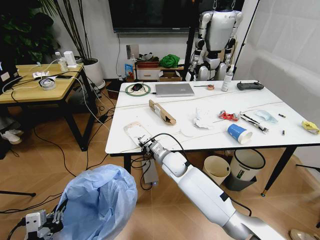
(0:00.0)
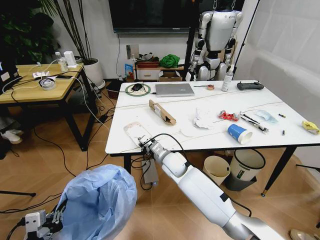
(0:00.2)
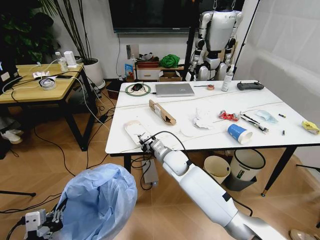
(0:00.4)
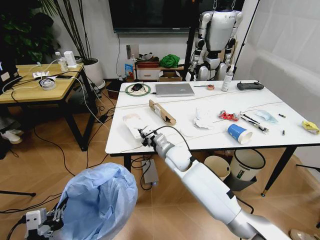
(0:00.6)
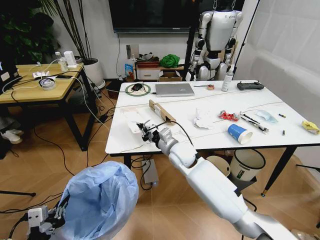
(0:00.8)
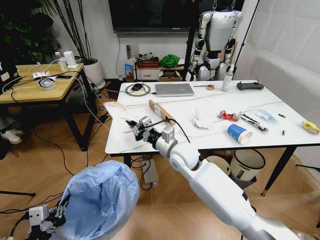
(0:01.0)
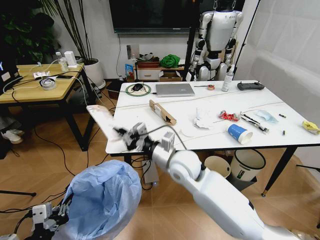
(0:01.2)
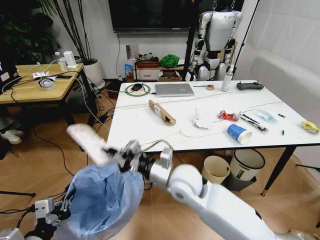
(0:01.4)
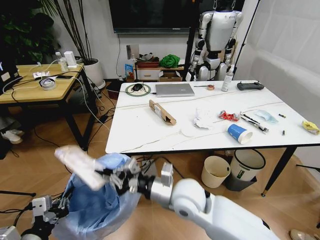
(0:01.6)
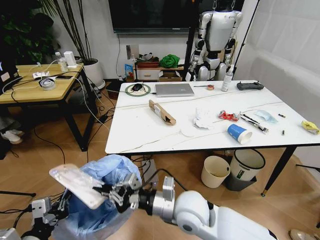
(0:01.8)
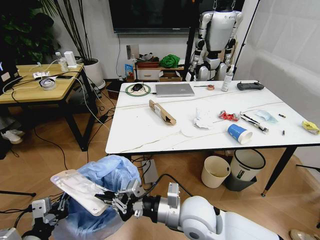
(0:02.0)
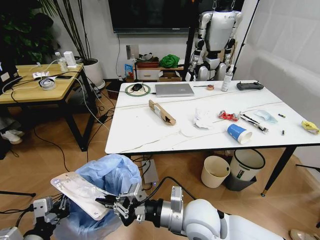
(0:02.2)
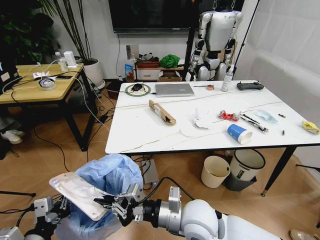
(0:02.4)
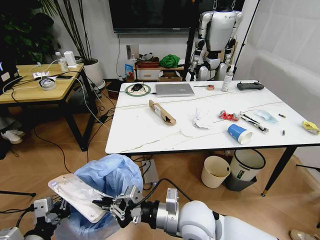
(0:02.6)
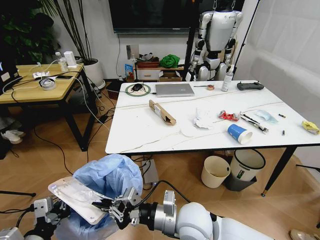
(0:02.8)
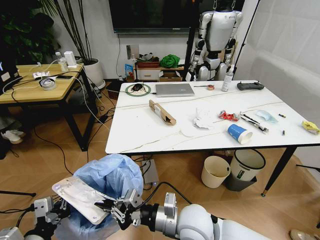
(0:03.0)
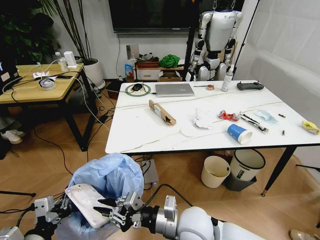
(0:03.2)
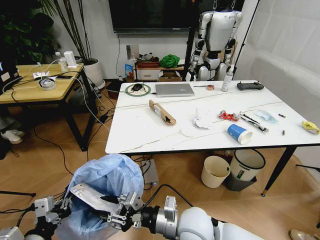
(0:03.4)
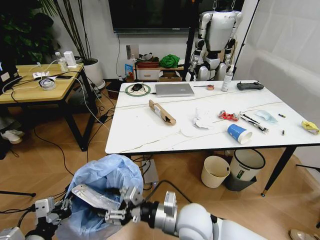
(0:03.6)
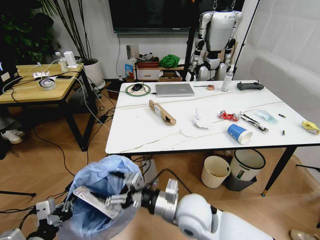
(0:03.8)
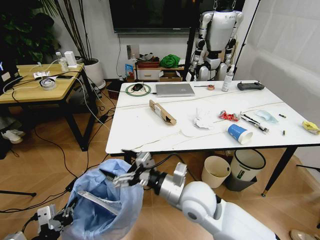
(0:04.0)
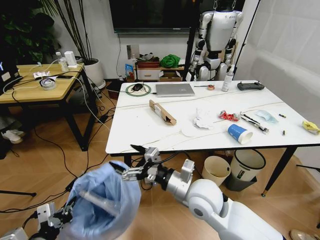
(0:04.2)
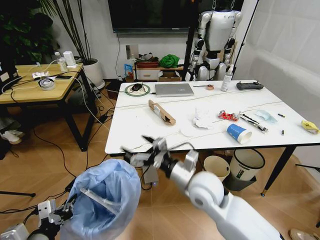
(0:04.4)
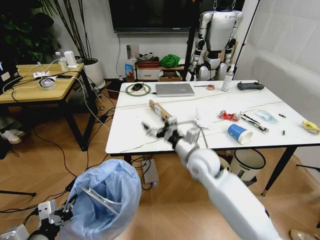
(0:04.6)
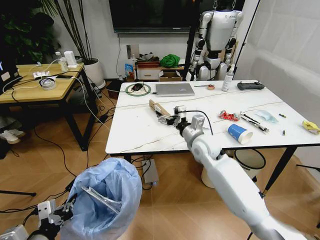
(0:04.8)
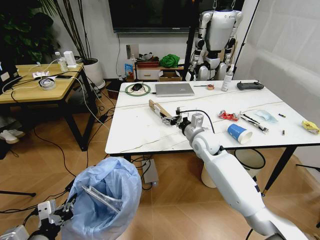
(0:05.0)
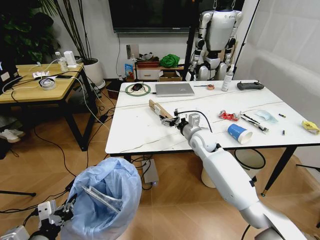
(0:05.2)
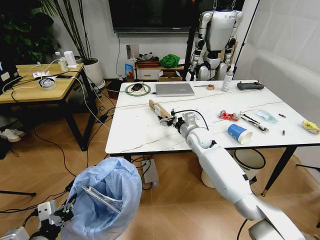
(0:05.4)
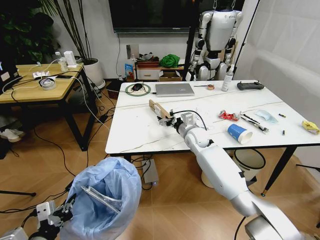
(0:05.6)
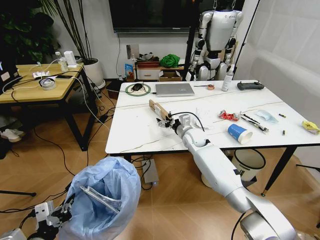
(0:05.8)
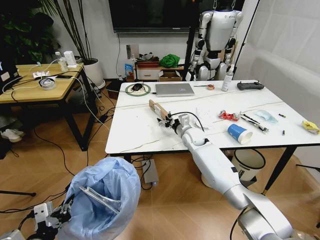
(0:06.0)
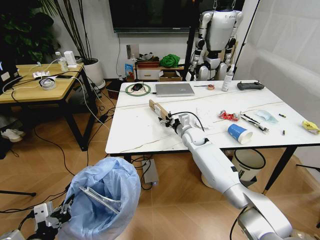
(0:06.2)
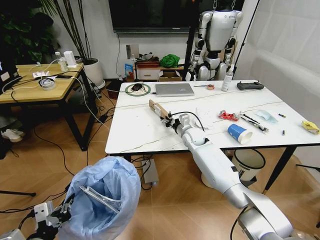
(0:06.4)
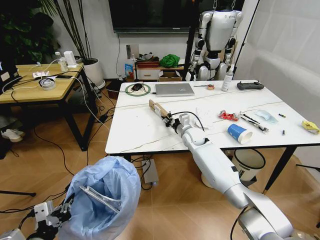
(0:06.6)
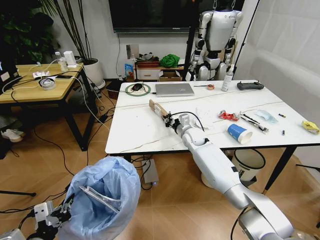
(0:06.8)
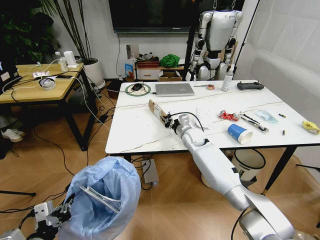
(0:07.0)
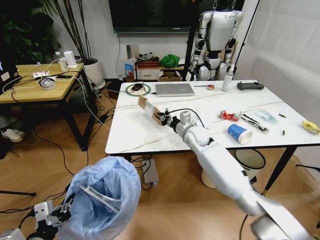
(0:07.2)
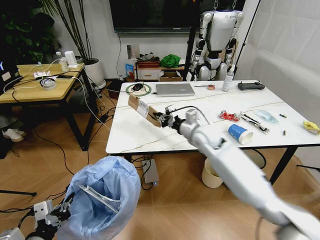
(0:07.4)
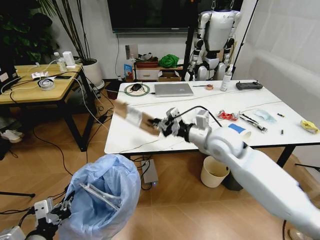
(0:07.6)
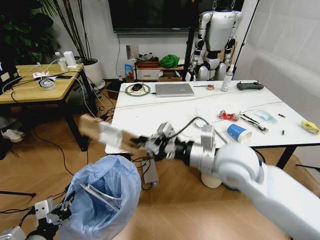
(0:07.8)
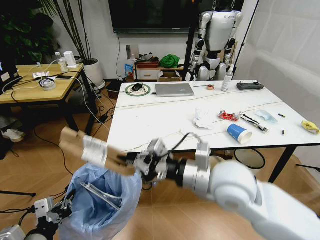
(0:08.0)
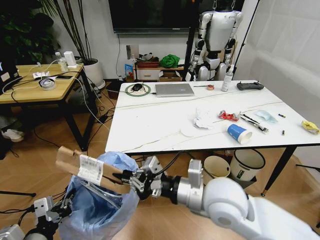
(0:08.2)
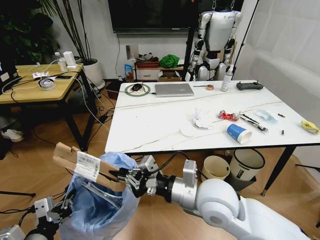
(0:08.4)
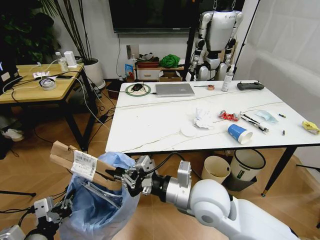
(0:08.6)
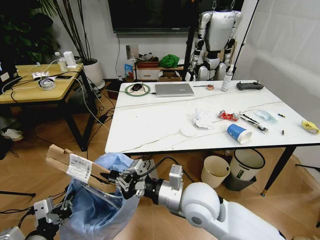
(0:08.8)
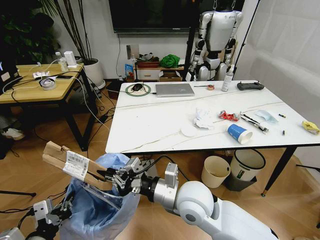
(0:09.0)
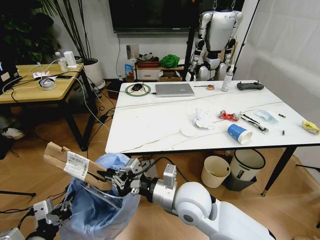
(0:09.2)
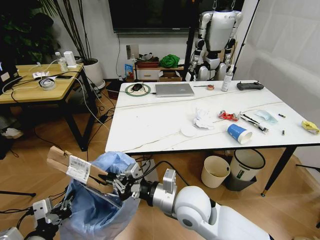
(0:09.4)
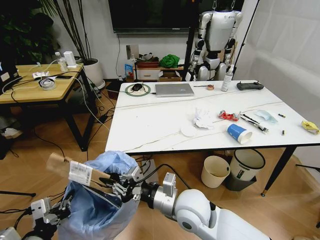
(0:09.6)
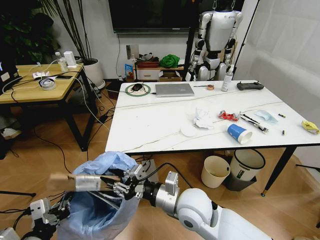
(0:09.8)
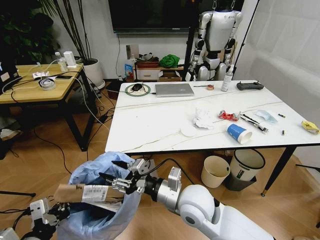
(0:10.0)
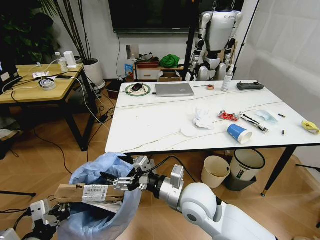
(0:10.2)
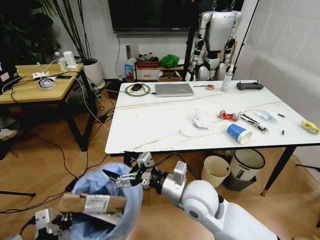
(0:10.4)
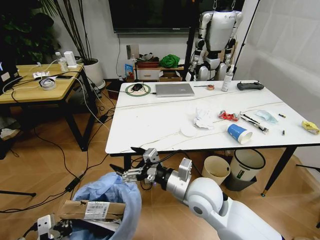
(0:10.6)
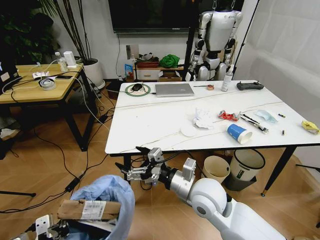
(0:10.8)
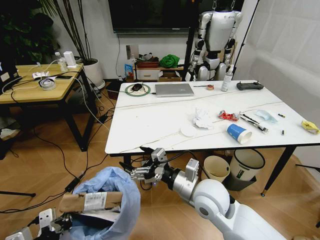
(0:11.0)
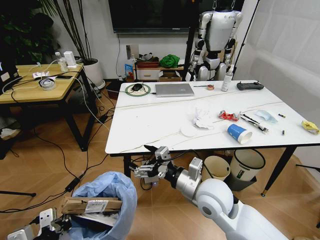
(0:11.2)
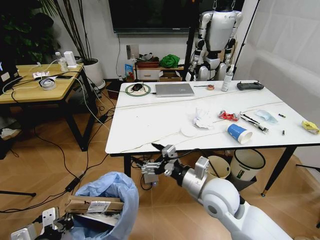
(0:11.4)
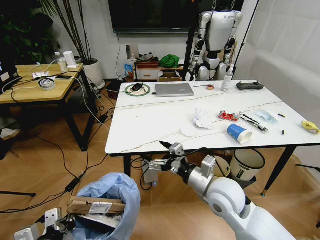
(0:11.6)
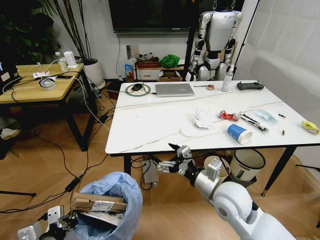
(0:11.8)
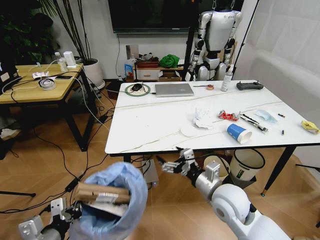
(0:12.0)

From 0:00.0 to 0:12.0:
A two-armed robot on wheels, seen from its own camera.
Task of the whole recording: Pick up the trash bin and place the trash from the table into it.
From 0:00.0 to 0:01.6: The right gripper travels backward and upward by about 20 cm.
From 0:01.6 to 0:03.0: The right gripper is displaced backward by roughly 5 cm.
From 0:03.0 to 0:04.4: The right gripper goes about 10 cm forward, and opens.
From 0:04.4 to 0:06.0: The right gripper goes about 25 cm forward.
From 0:06.0 to 0:07.6: The right gripper moves backward and upward, roughly 25 cm, and closes its fingers.
From 0:07.6 to 0:09.0: The right gripper goes roughly 20 cm backward, to the left and downward.
From 0:09.0 to 0:10.4: The right gripper opens up.
From 0:10.4 to 0:12.0: The right gripper shifts some 10 cm to the right.

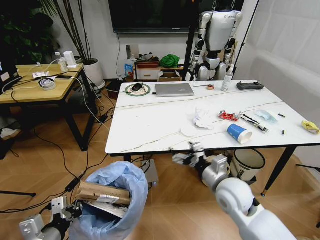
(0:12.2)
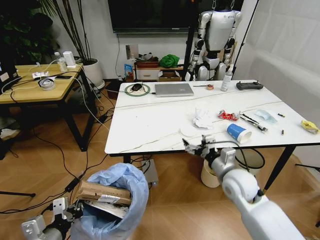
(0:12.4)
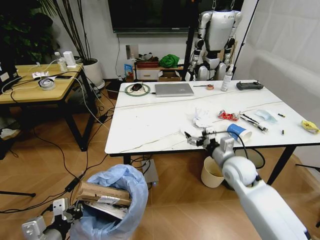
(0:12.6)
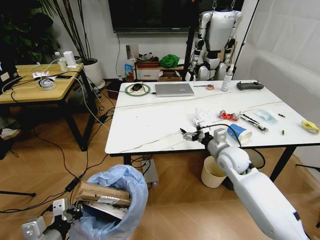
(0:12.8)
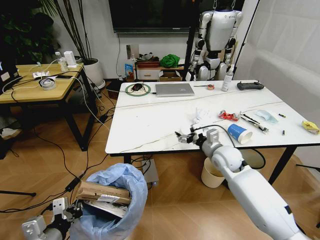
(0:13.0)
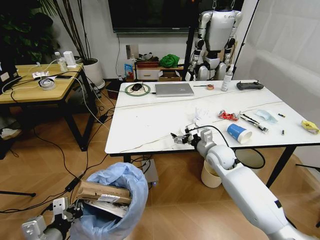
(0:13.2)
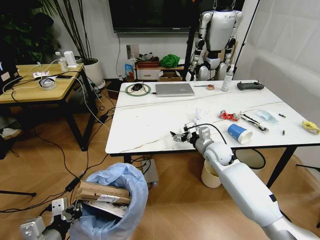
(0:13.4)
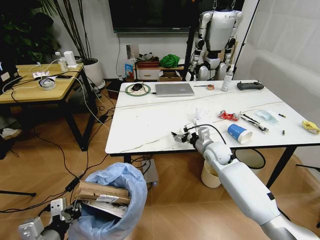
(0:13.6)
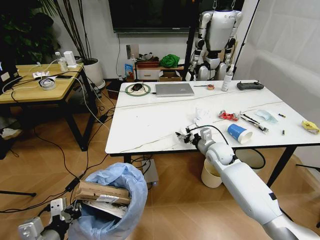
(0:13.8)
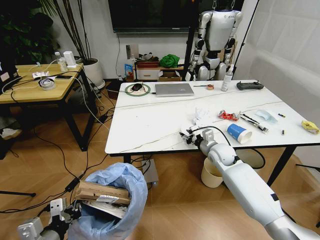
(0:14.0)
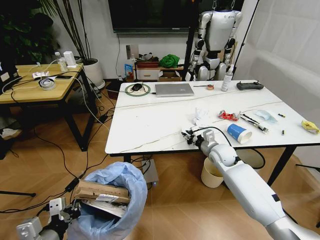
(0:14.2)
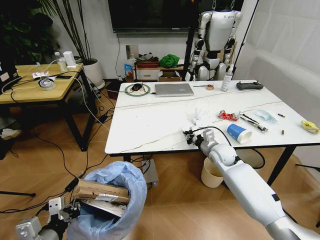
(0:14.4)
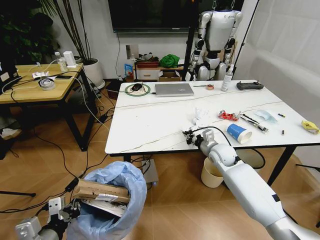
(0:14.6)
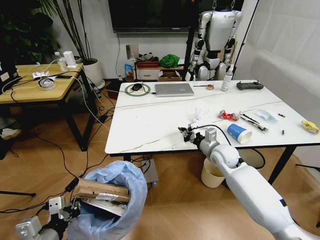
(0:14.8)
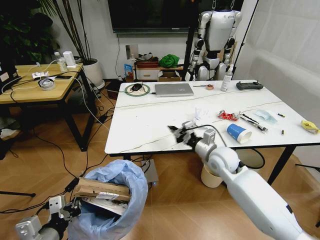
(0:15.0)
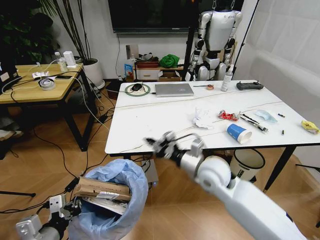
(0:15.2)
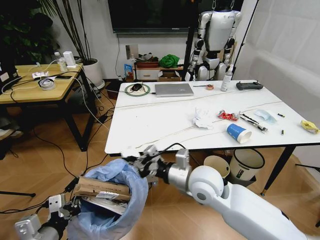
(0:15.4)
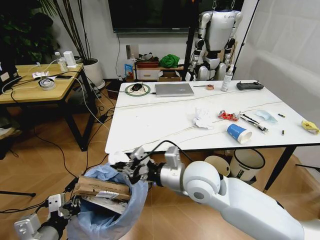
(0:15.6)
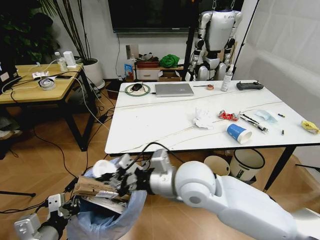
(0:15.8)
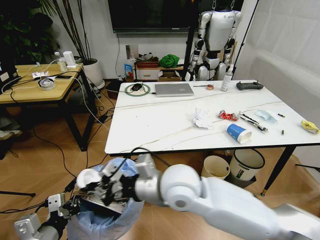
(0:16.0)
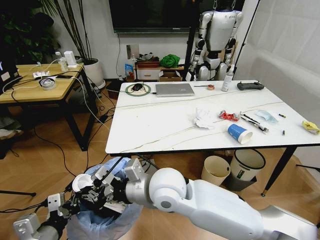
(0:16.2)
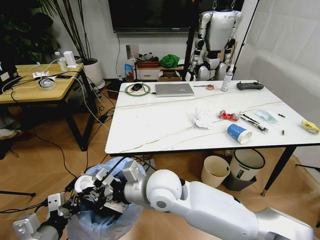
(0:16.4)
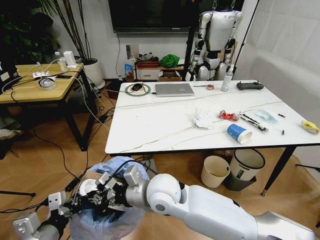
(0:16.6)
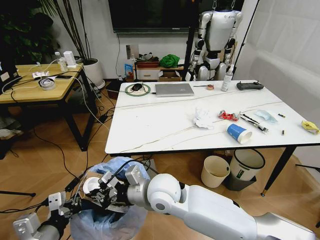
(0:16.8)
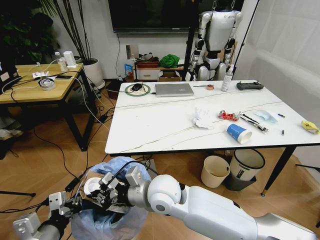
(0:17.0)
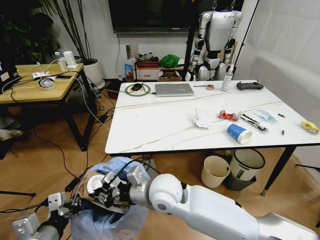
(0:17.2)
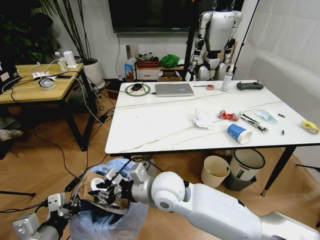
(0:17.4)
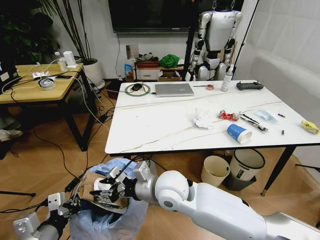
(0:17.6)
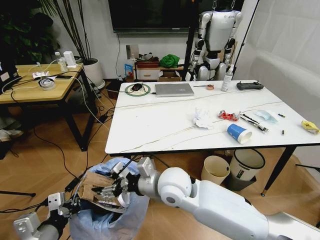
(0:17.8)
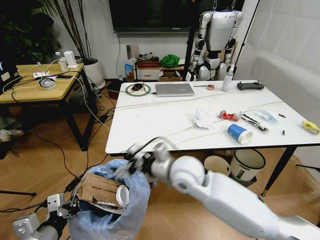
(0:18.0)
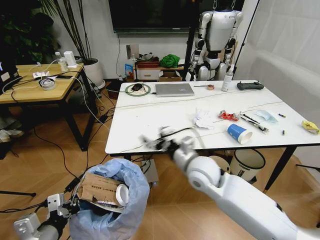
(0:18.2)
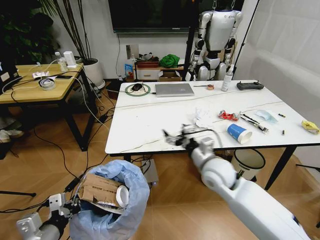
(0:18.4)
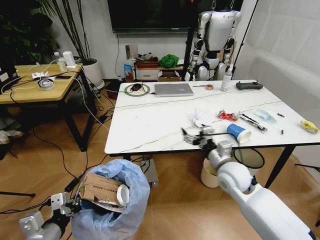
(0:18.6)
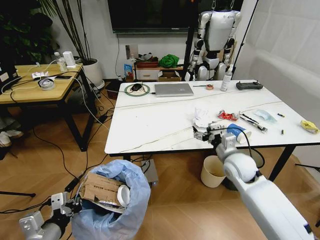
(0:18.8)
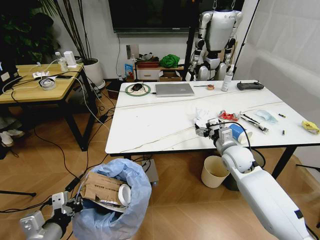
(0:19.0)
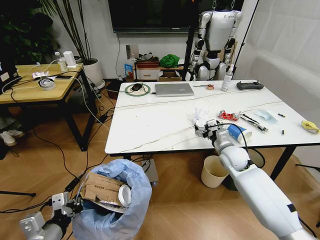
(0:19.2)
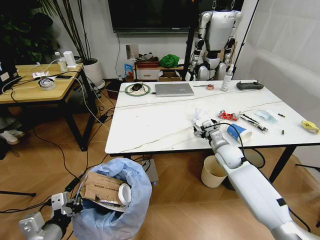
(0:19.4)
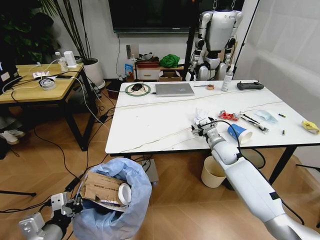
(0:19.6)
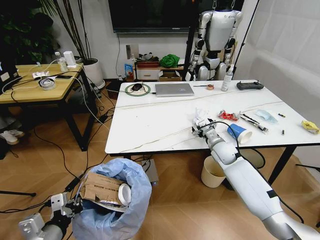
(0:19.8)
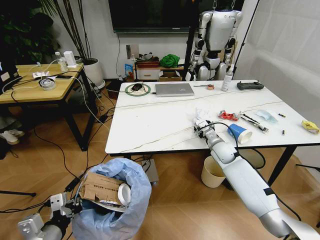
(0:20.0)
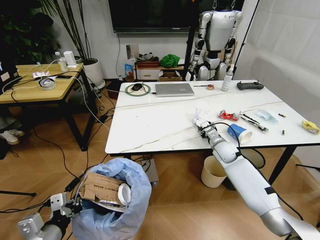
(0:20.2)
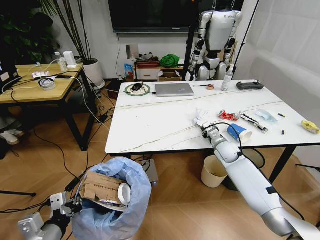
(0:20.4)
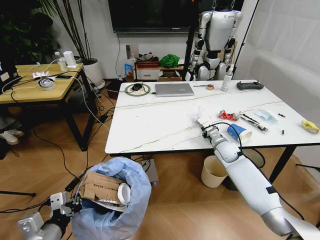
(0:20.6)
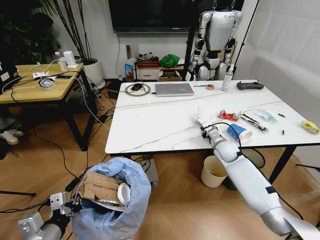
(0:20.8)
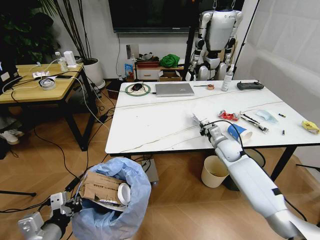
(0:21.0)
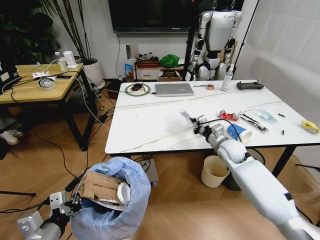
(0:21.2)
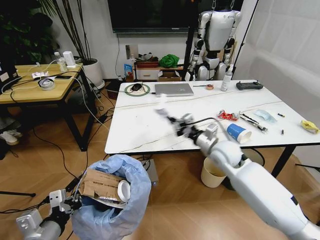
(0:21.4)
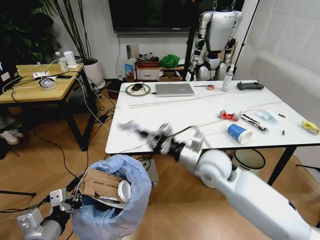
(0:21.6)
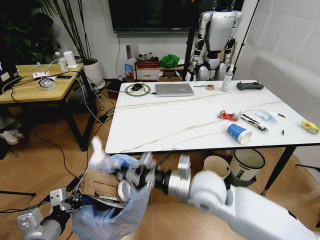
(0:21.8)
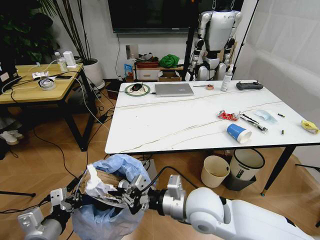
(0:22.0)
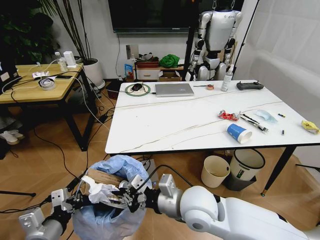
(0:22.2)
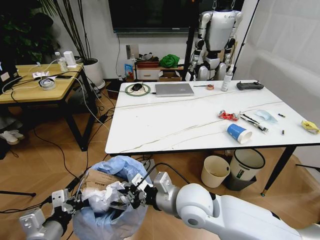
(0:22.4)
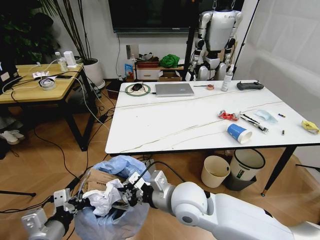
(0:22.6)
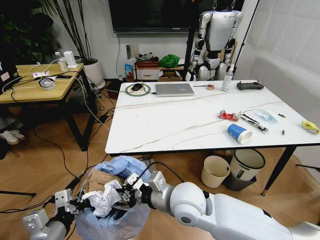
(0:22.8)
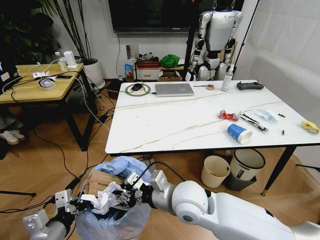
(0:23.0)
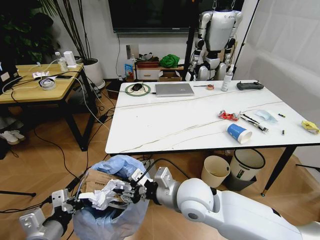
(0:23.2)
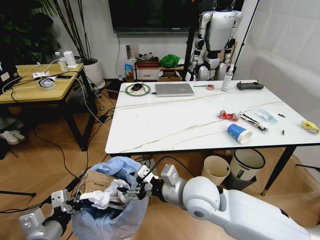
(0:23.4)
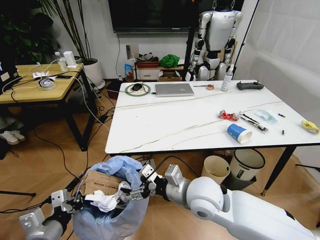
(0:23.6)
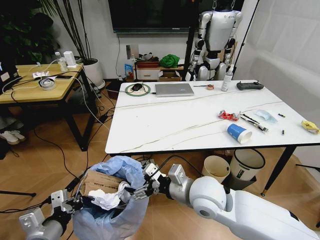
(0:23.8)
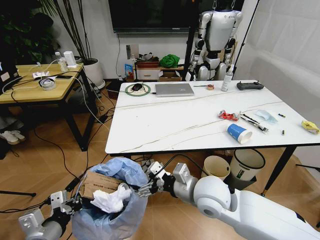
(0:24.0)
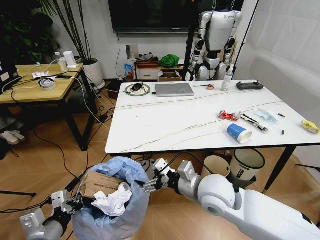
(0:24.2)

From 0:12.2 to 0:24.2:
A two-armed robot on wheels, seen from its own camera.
Task of the whole recording: Pick up the trash bin and place the trash from the table into it.
From 0:12.2 to 0:13.8: The right gripper moves forward, roughly 15 cm, and closes its fingers.
From 0:13.8 to 0:15.2: The right gripper is displaced backward, to the left and upward by about 15 cm, and closes.
From 0:15.2 to 0:16.6: The right gripper is displaced to the left by roughly 15 cm.
From 0:16.6 to 0:18.2: The right gripper travels to the right and forward by roughly 15 cm, and opens its fingers.
From 0:18.2 to 0:19.8: The right gripper travels to the right, forward and downward by roughly 25 cm.
From 0:19.8 to 0:21.2: The right gripper moves approximately 5 cm, and closes.
From 0:21.2 to 0:22.6: The right gripper is displaced to the left and backward by about 30 cm.
From 0:22.6 to 0:24.2: The right gripper heads to the right, covering approximately 10 cm, and opens its fingers.
